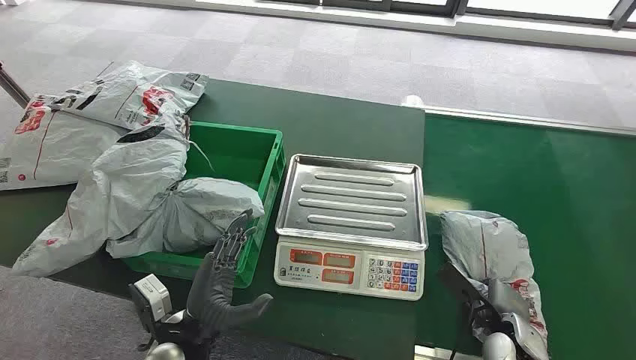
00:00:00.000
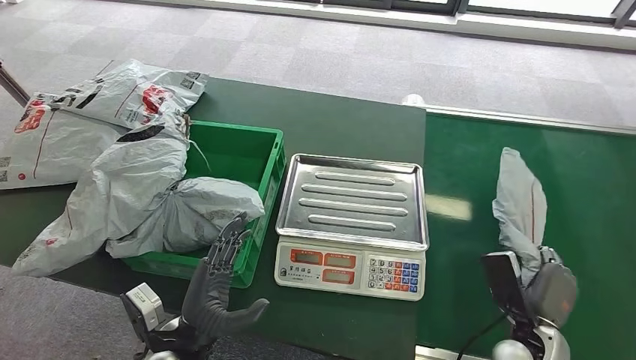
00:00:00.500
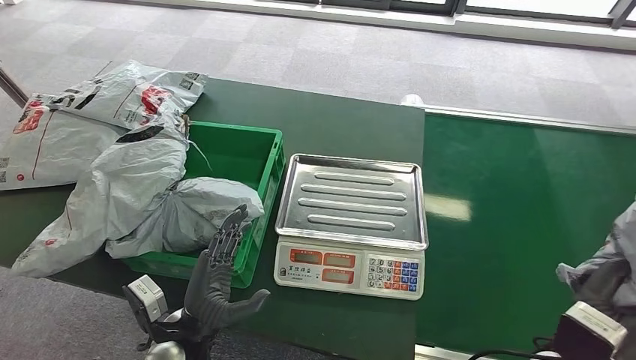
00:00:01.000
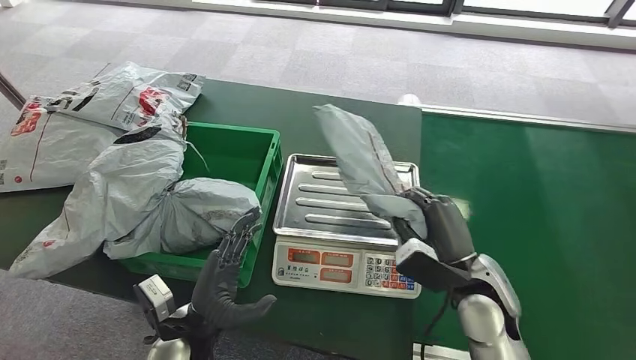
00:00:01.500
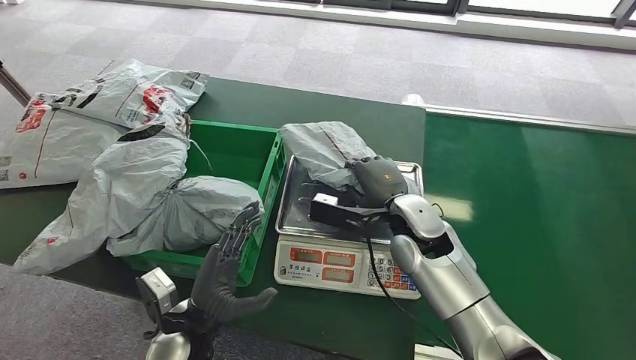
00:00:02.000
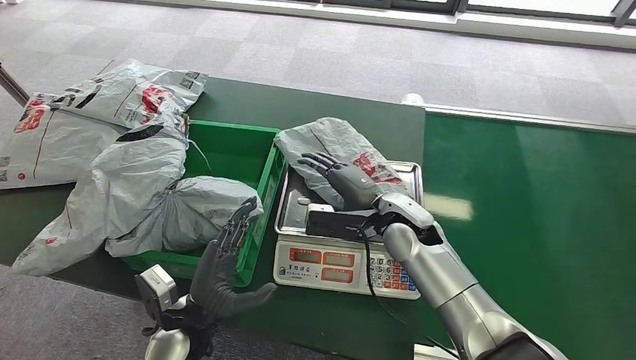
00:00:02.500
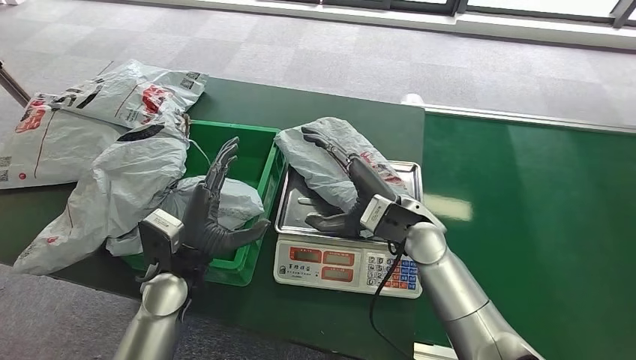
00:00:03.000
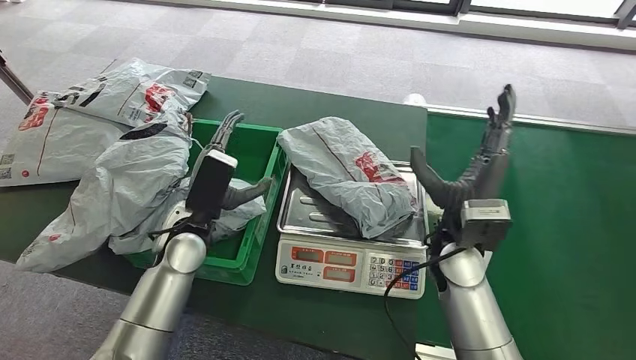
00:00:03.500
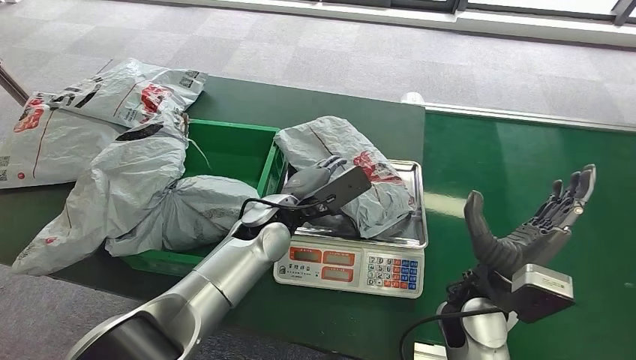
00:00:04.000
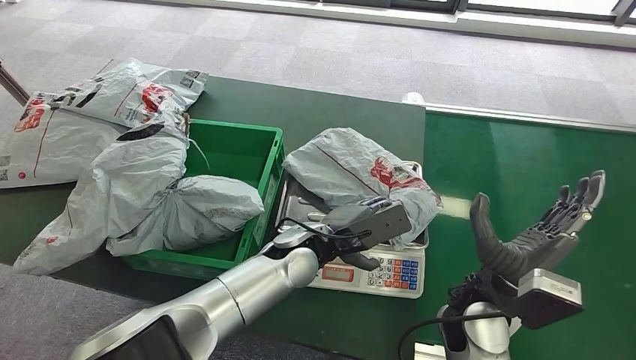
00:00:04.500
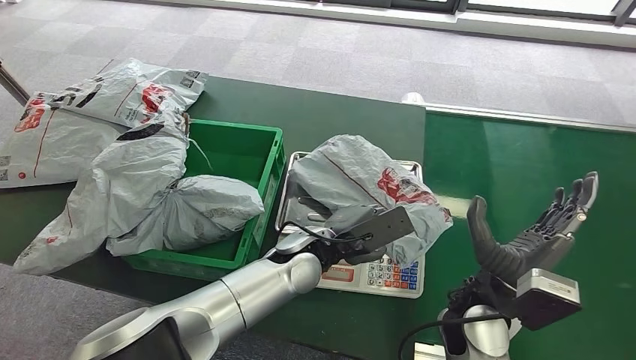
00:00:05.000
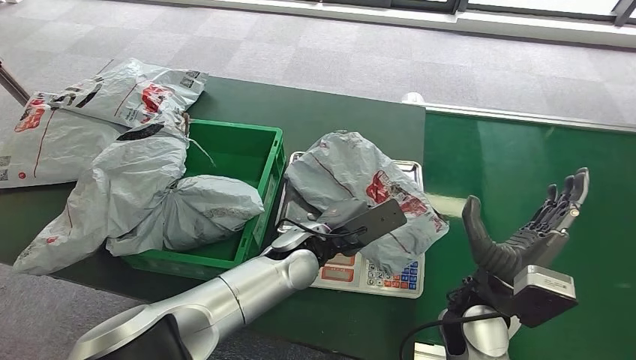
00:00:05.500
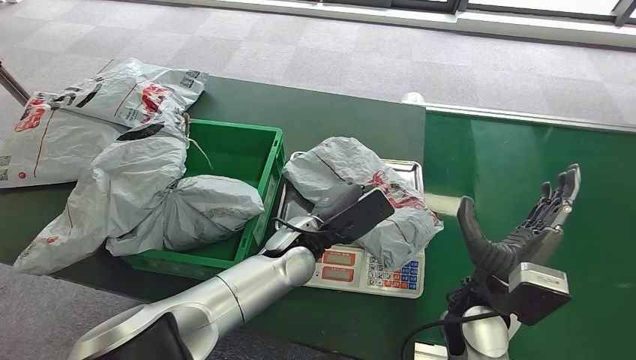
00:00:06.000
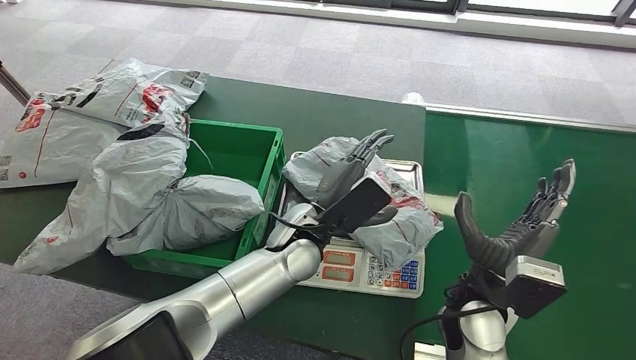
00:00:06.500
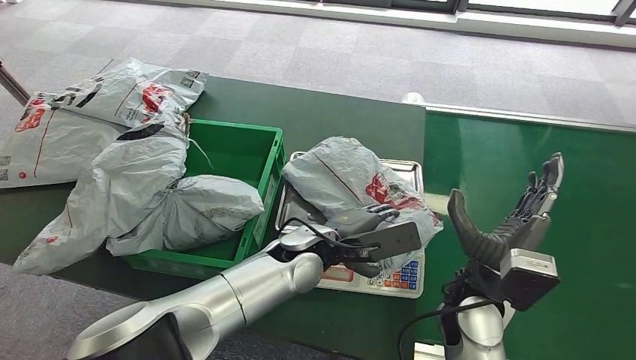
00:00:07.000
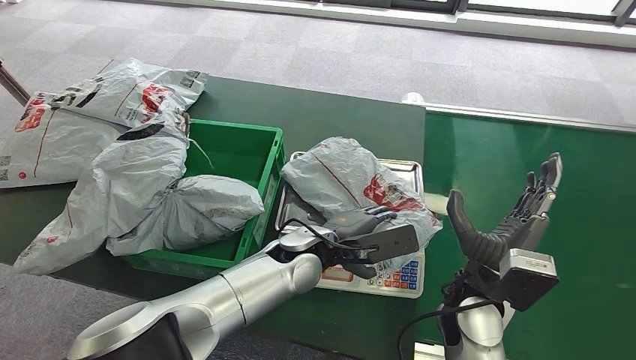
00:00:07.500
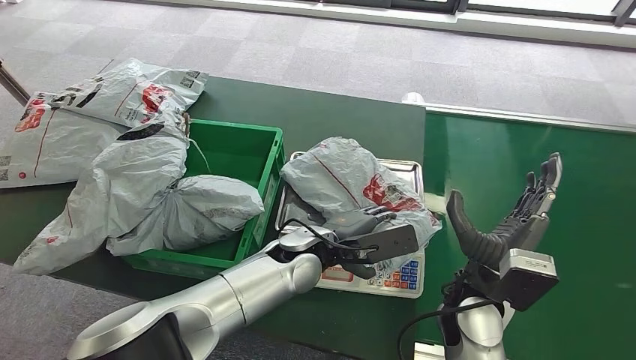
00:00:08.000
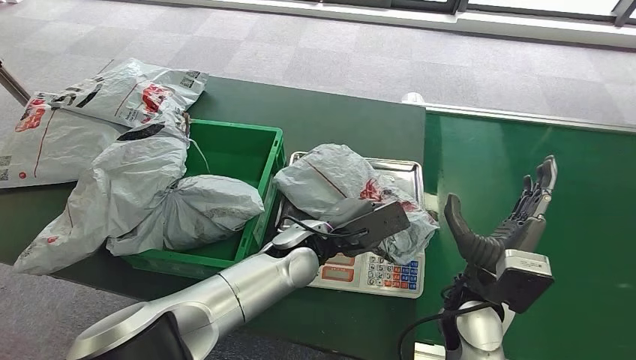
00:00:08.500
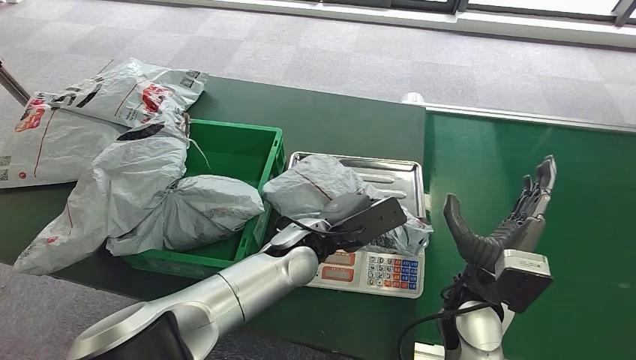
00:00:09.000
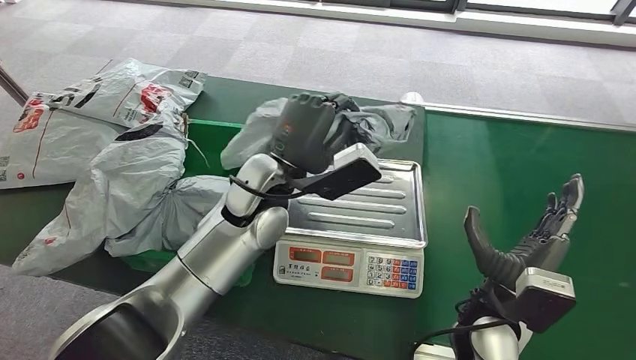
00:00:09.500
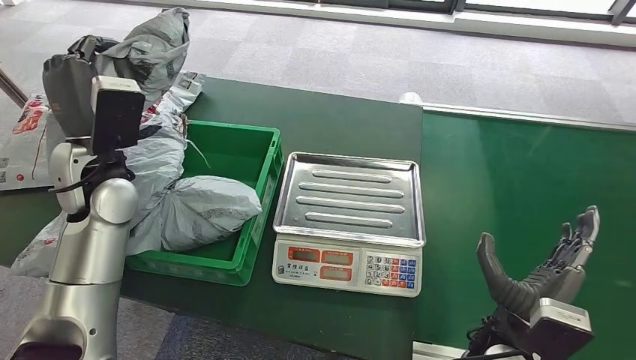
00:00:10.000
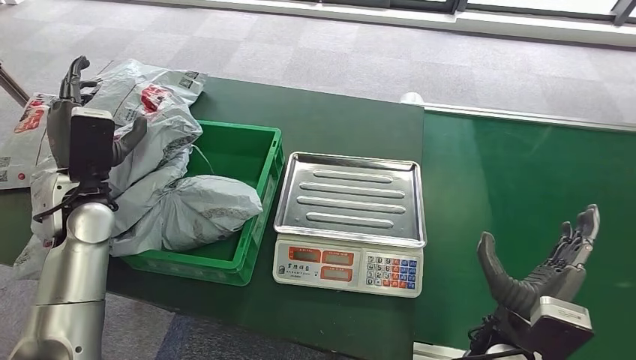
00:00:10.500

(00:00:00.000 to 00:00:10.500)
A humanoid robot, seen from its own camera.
Step, 00:00:00.000 - 00:00:01.000: Pick up the package from the conveyor belt.
Step, 00:00:01.500 - 00:00:03.000: Place the package onto the inbound machine.
Step, 00:00:06.000 - 00:00:09.500: Pick up the package from the inbound machine.
Step, 00:00:10.000 - 00:00:10.500: Place the package into the parcel locker.
00:00:04.000 - 00:00:06.500: The left hand moves approximately 5 cm.
